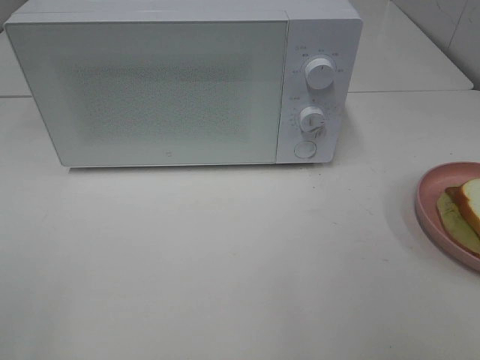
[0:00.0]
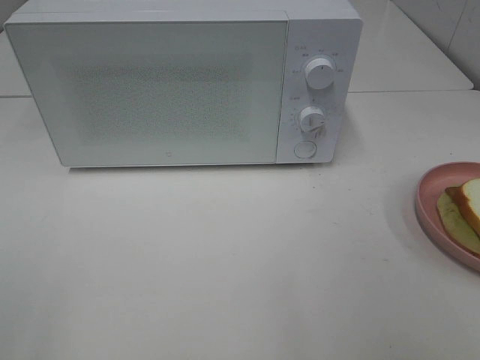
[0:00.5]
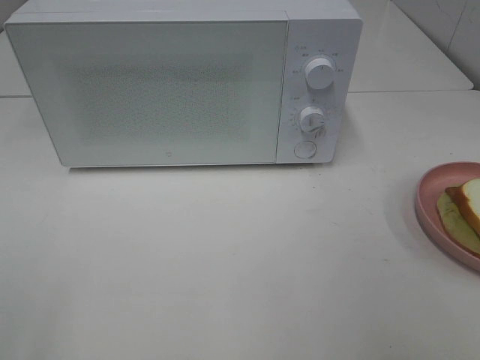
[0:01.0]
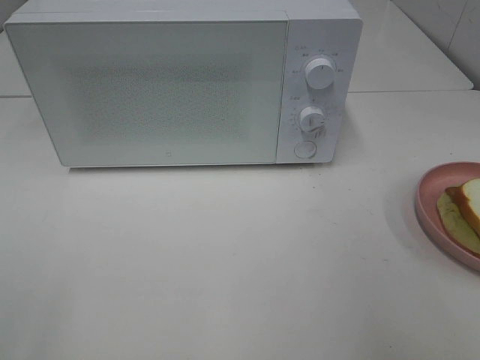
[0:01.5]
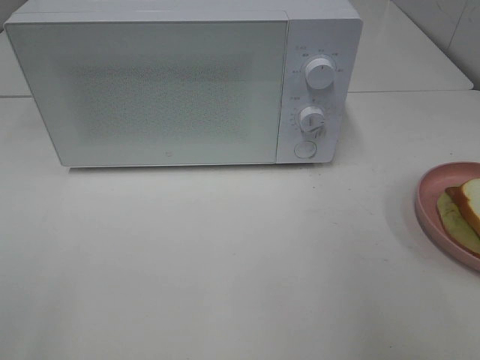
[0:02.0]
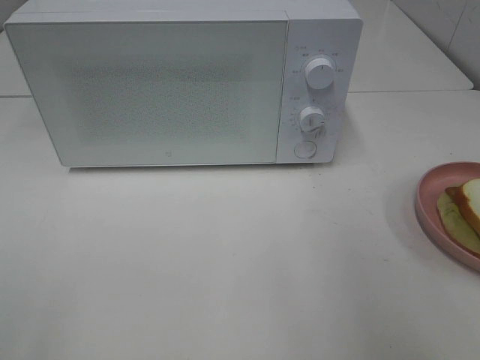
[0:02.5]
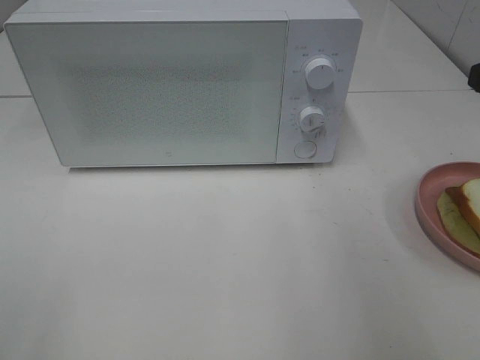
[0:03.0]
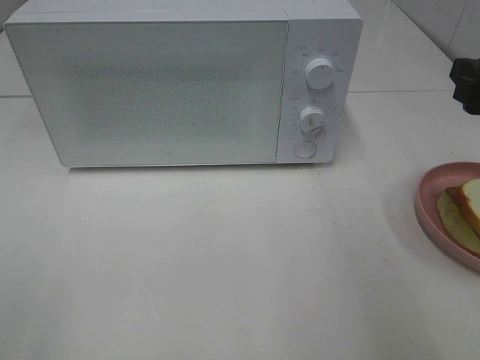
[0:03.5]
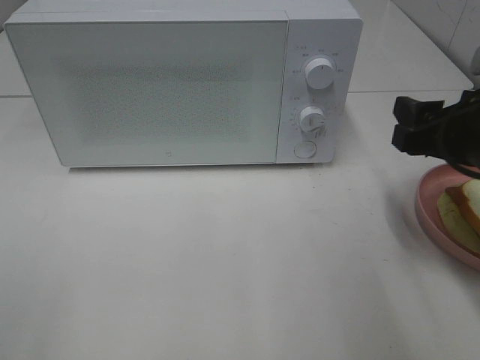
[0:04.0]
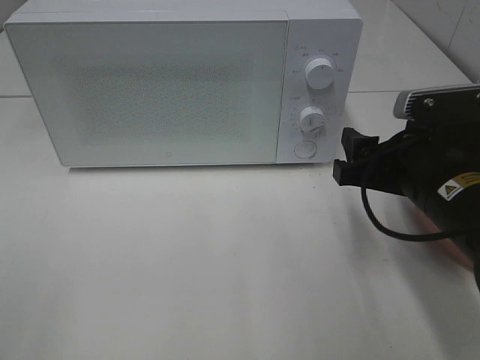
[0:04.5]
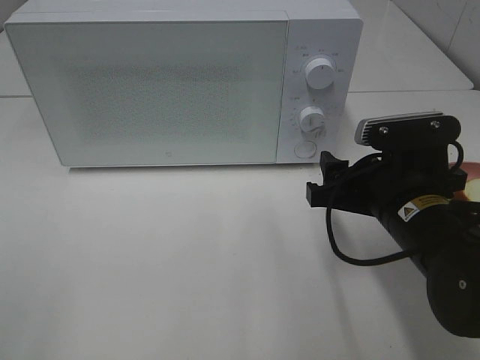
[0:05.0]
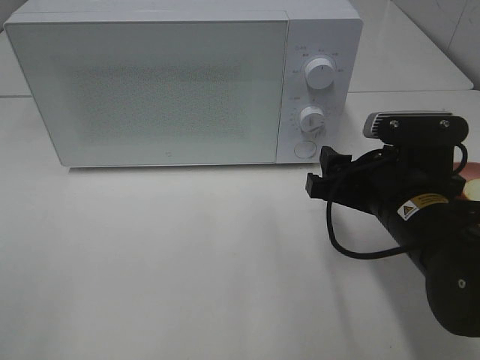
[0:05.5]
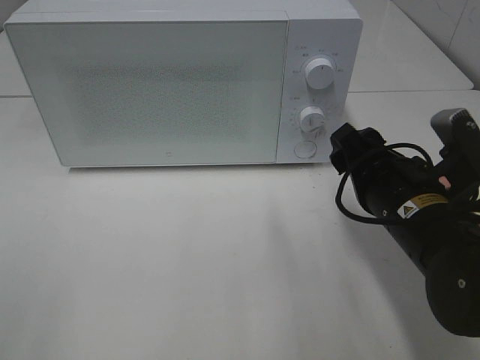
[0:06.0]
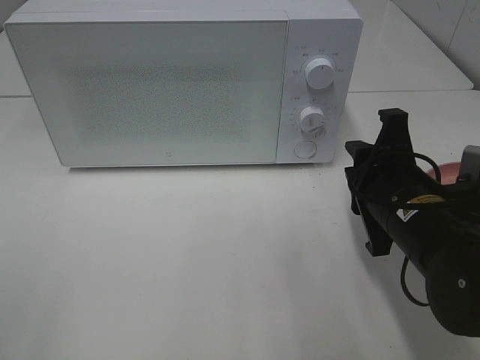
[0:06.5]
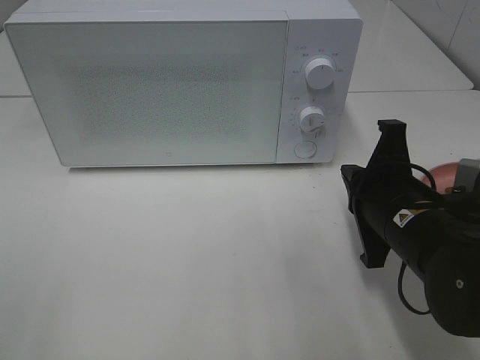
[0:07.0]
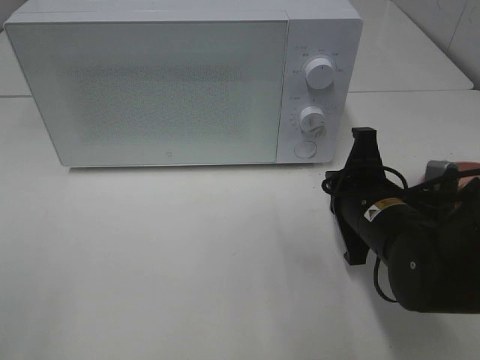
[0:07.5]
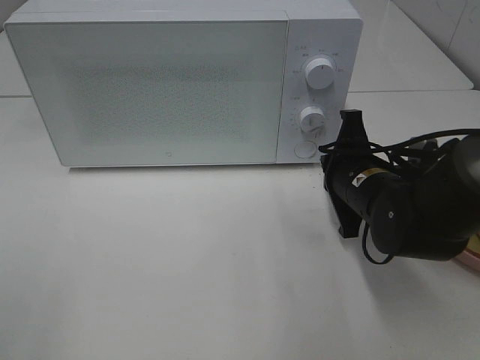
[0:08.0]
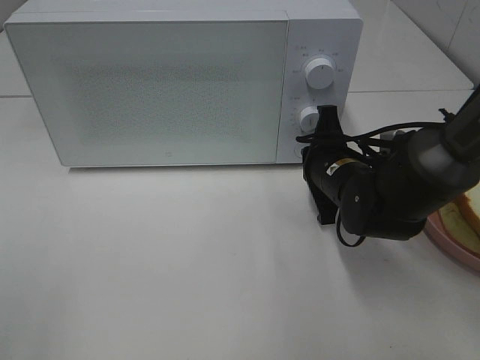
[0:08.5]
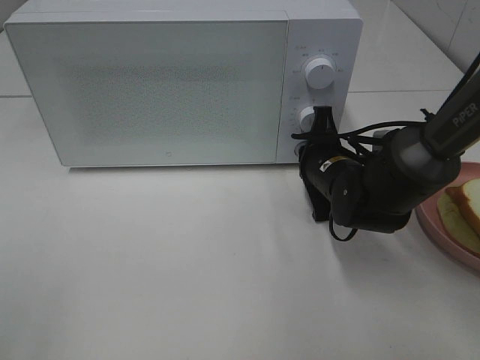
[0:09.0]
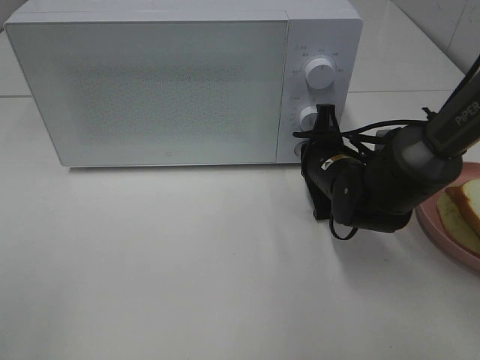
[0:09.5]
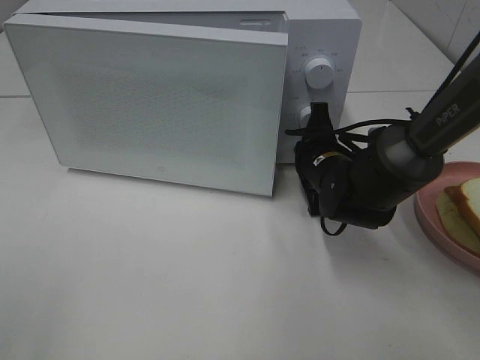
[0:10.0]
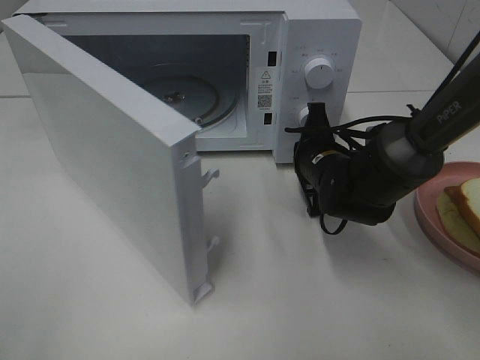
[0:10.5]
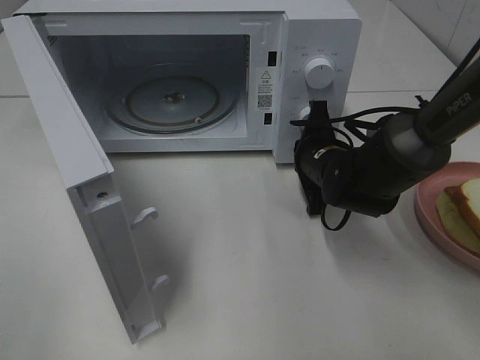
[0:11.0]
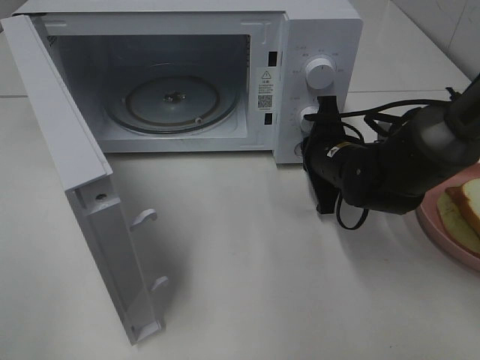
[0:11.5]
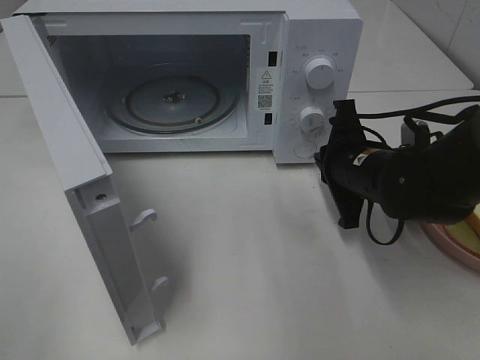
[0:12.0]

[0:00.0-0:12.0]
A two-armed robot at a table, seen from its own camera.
Task of the whole recording: Heat Sandwich.
Step, 0:00.0 to 0:12.0: Right hand: press the switch.
0:02.0 to 0:04.0: The right gripper shifts roughly 15 cm downward, forward and to the left.
0:04.0 to 0:06.0: The right gripper shifts approximately 10 cm to the left and downward.
0:06.0 to 0:08.0: The right gripper travels forward by approximately 5 cm, and closes.
0:08.0 to 0:10.0: The right gripper moves forward, some 5 cm.
0:10.0 to 0:12.0: The right gripper shifts by about 5 cm.

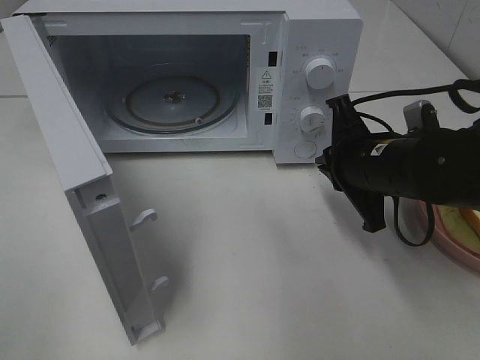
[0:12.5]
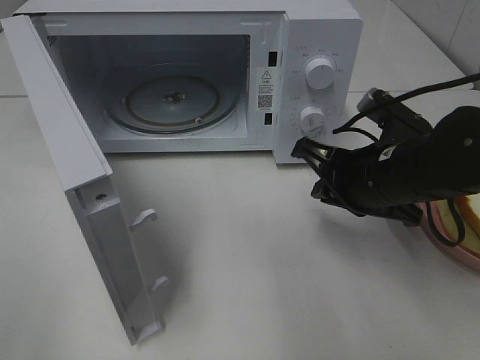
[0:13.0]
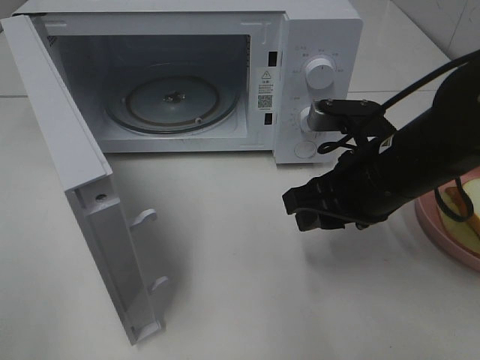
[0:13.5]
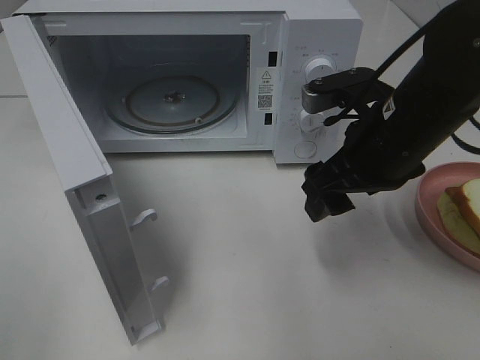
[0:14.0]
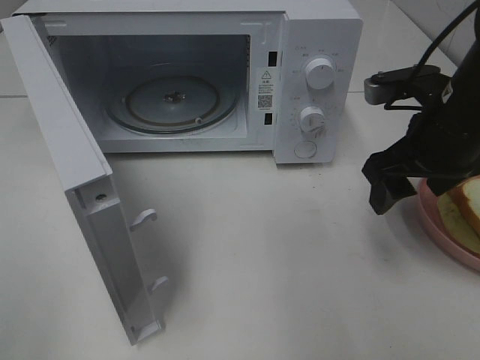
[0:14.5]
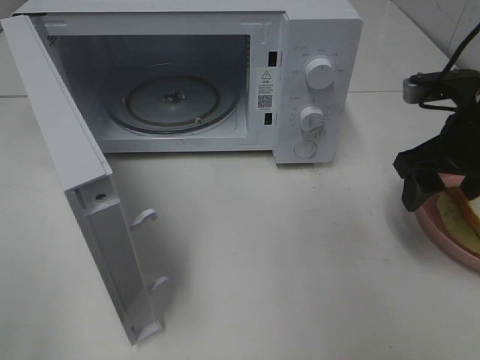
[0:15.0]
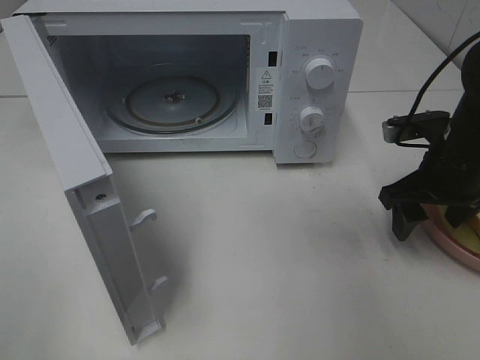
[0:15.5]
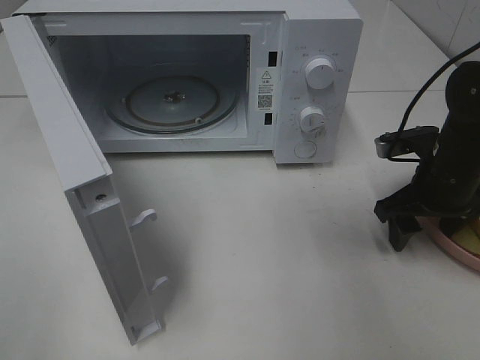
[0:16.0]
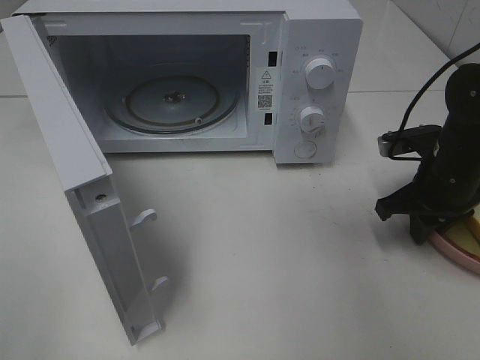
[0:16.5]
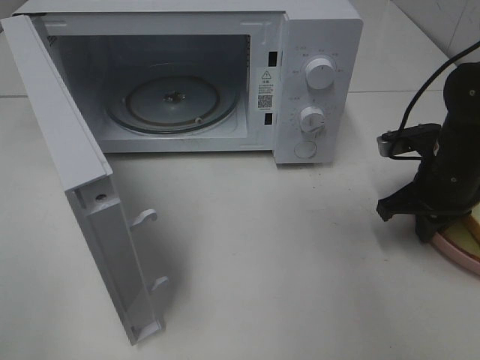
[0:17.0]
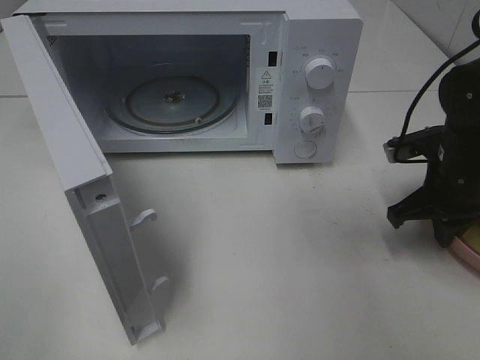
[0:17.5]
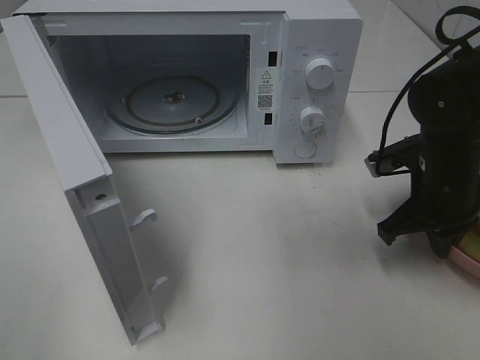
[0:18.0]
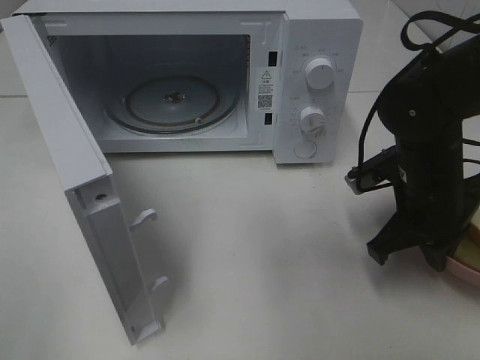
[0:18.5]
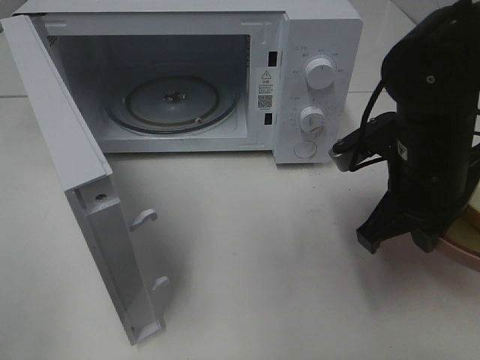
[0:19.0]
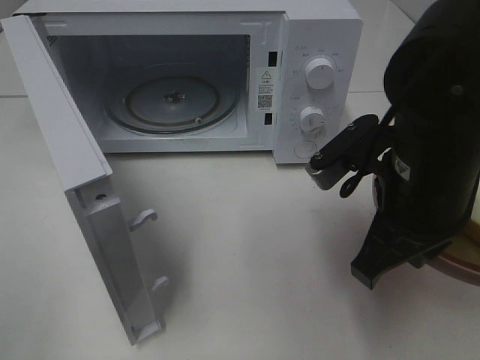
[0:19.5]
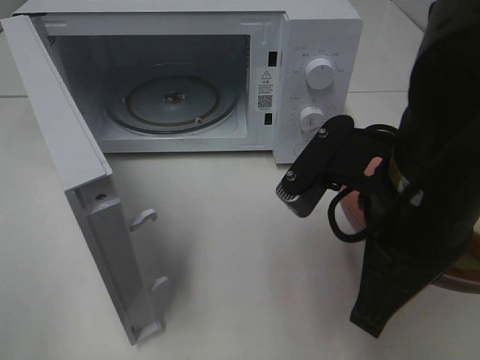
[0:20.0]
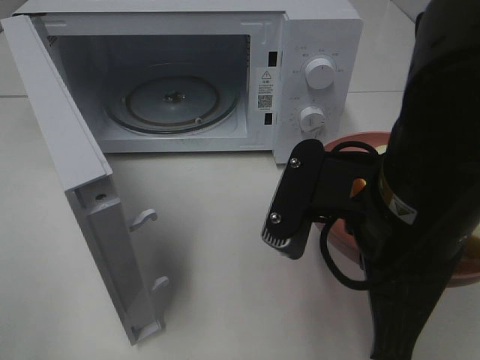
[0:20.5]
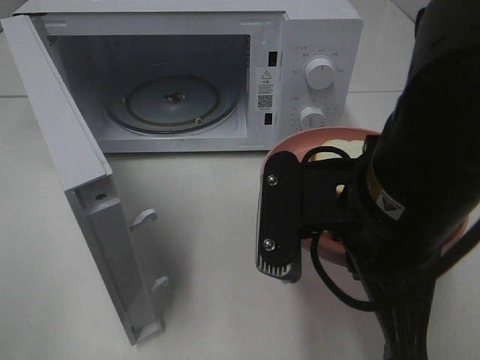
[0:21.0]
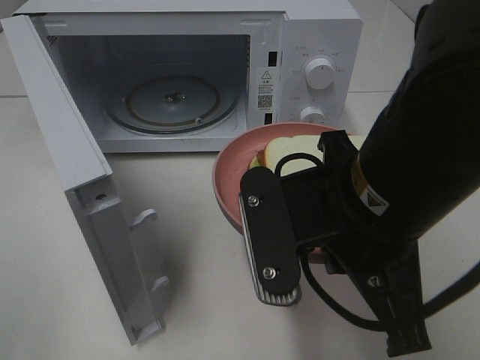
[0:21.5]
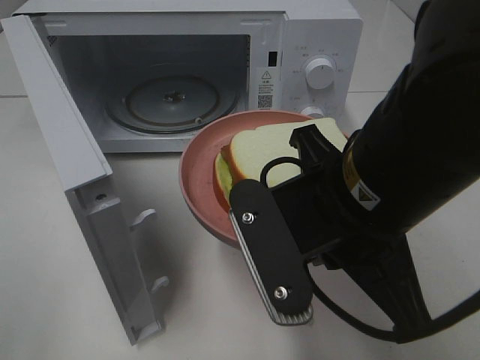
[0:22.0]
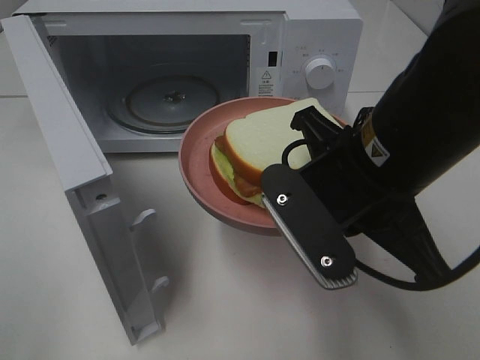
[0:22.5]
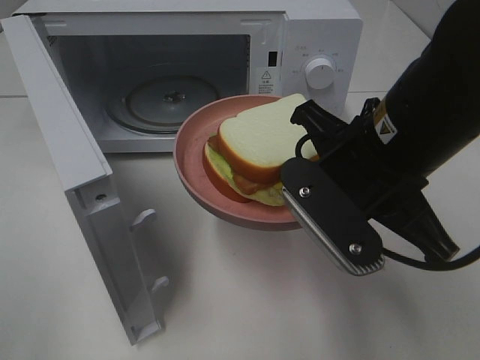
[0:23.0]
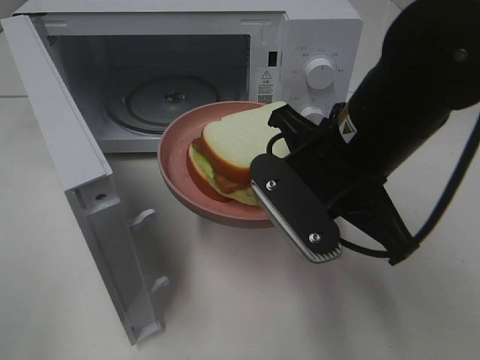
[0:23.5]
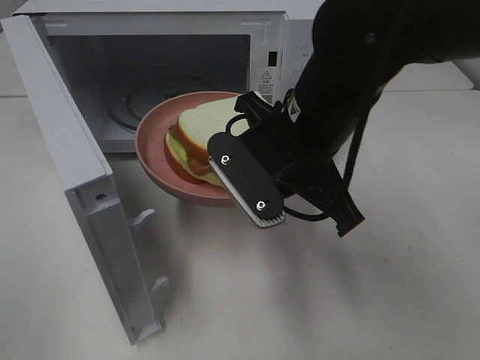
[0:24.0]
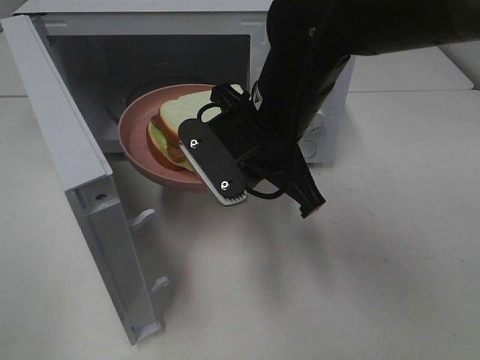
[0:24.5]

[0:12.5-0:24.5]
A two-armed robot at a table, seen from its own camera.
Task of the whole recording: Heat Sandwich.
Step, 0:12.5 to 0:16.5: Right hand: grab the plate with the sandwich.
0:12.5 to 0:14.5: The right gripper is displaced upward by approximately 5 cm, and opens.
0:14.5 to 0:16.5: The right gripper shifts approximately 10 cm downward, and closes its fingers.
0:16.5 to 0:18.5: The right gripper moves to the left, some 5 cm.
0:18.5 to 0:20.5: The right gripper moves backward, upward and to the left, some 20 cm.
0:22.5 to 0:24.5: The right gripper travels forward and to the left by about 10 cm.

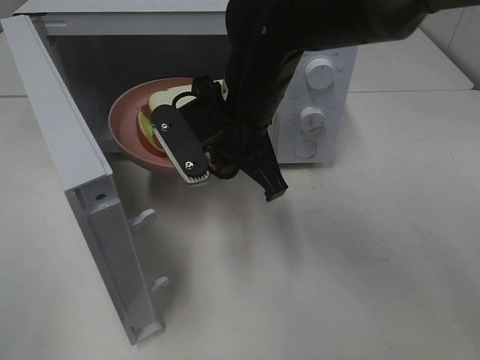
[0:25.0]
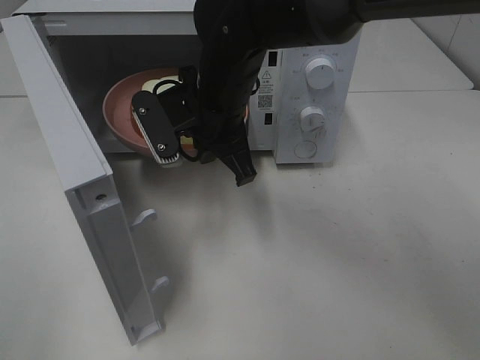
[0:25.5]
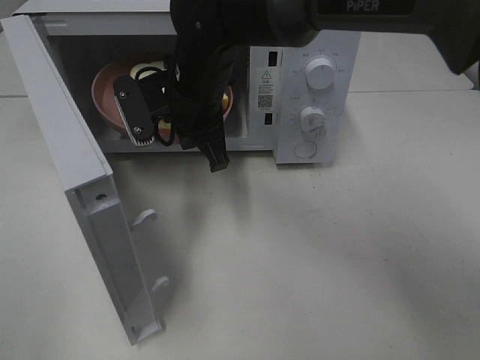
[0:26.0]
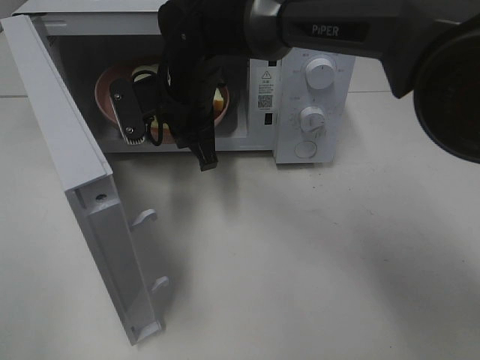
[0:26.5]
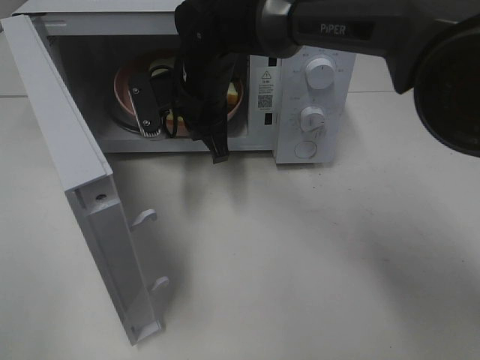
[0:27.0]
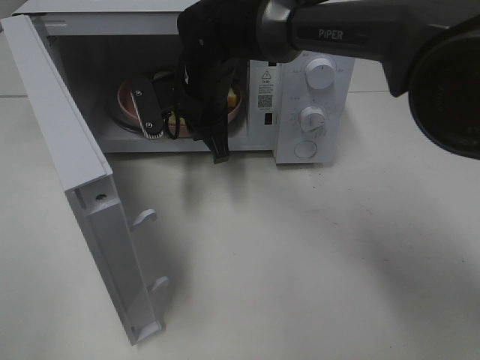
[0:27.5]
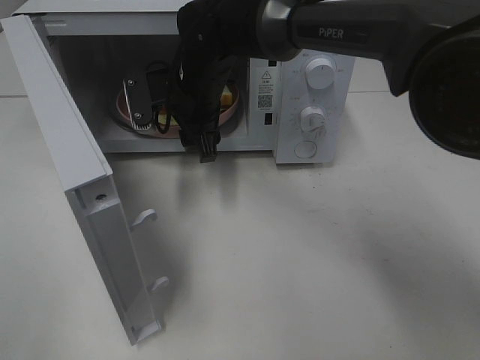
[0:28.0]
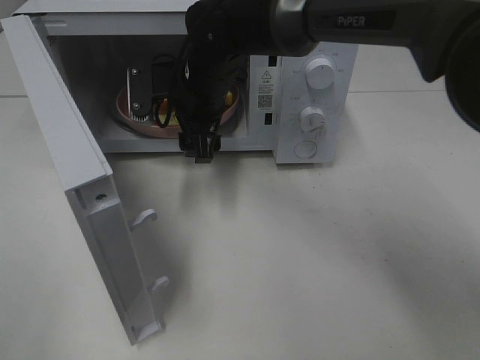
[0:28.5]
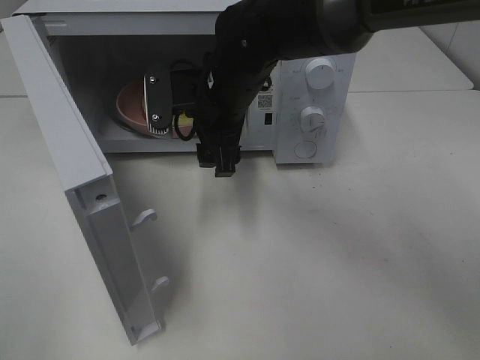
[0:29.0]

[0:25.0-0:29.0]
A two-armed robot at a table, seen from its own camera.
Task of the whole recording: Heat Sandwich.
Step, 0:25.0 to 0:28.0: Right hand: place the plate in the microwave.
0:25.0 to 0:27.0: The right gripper heads forward, covering roughly 10 cm.
0:27.0 to 0:29.0: The right gripper changes place by about 5 cm, and opens its fingers.
